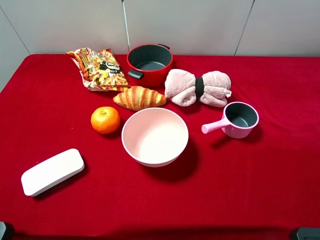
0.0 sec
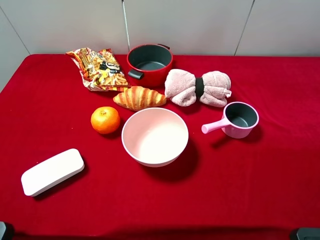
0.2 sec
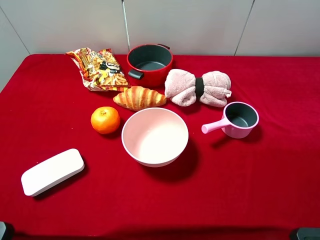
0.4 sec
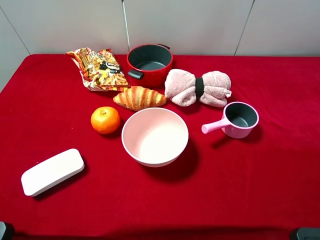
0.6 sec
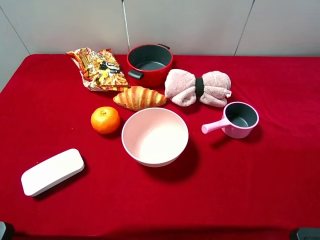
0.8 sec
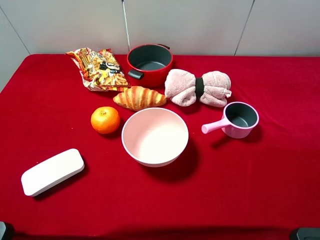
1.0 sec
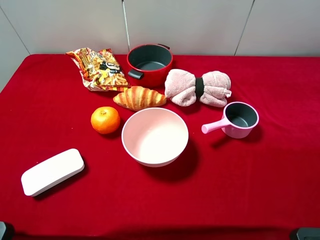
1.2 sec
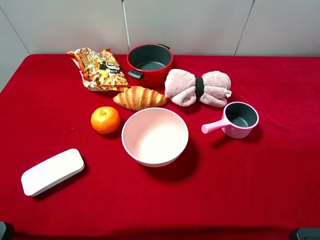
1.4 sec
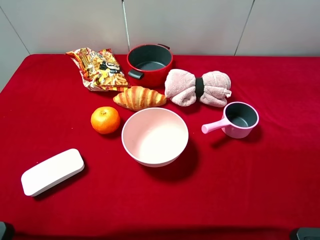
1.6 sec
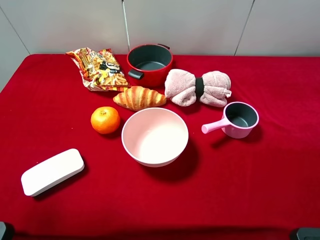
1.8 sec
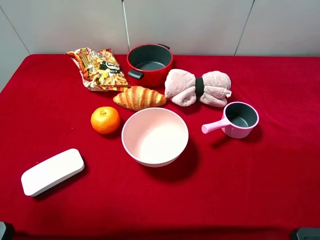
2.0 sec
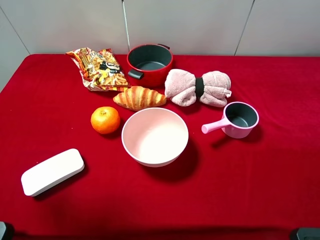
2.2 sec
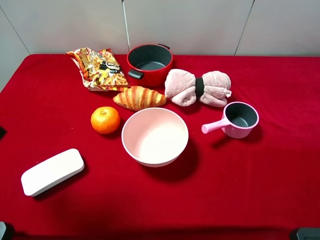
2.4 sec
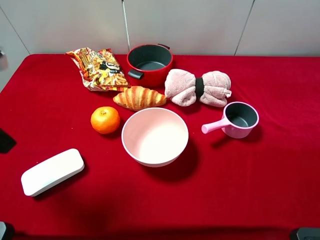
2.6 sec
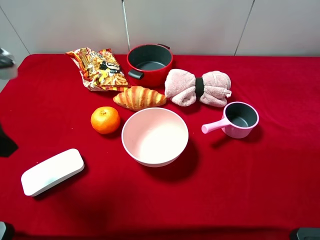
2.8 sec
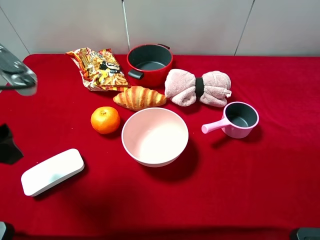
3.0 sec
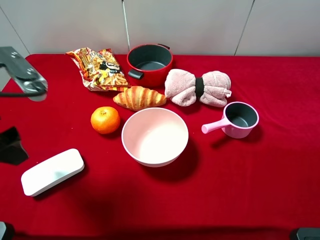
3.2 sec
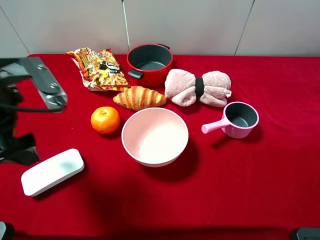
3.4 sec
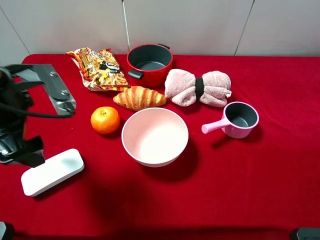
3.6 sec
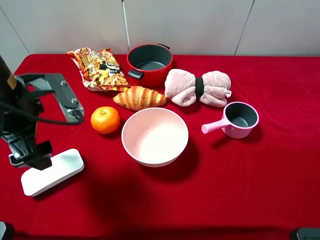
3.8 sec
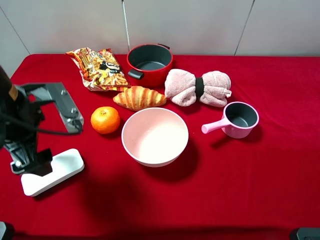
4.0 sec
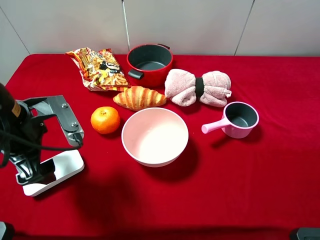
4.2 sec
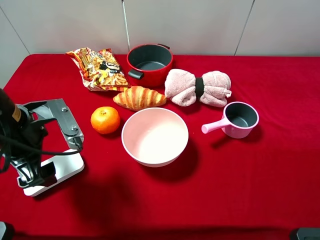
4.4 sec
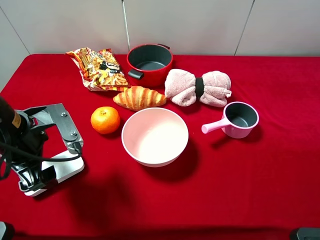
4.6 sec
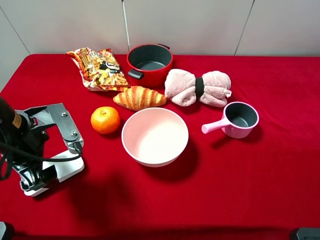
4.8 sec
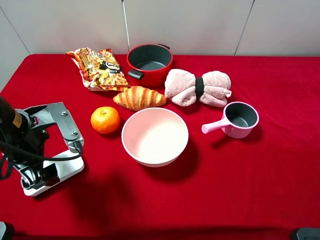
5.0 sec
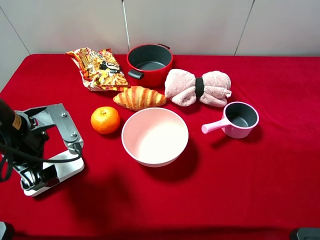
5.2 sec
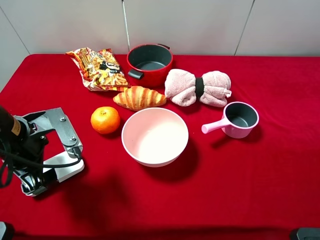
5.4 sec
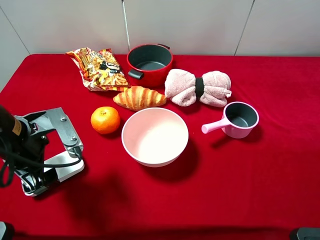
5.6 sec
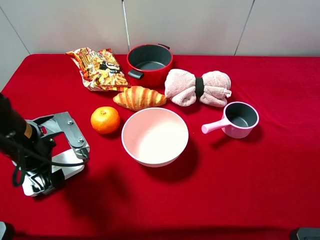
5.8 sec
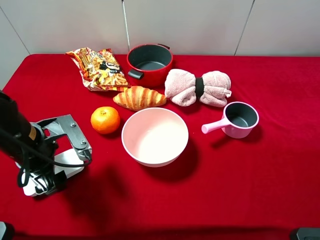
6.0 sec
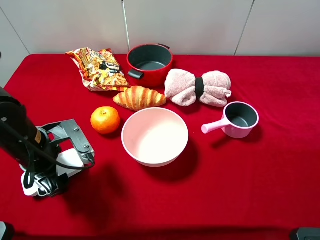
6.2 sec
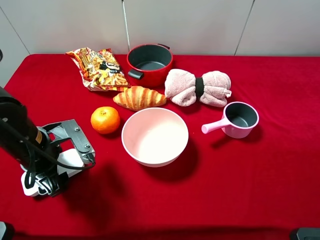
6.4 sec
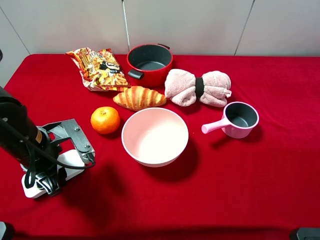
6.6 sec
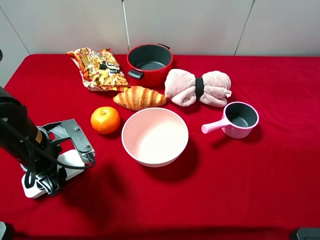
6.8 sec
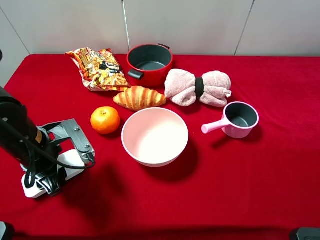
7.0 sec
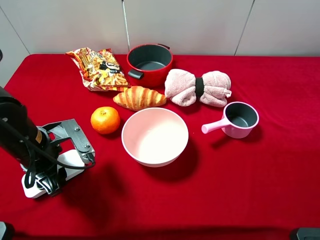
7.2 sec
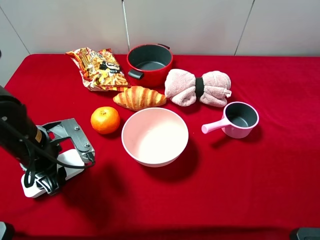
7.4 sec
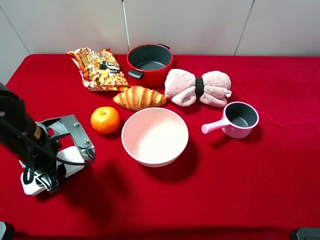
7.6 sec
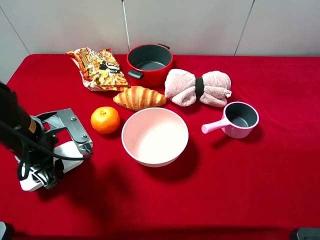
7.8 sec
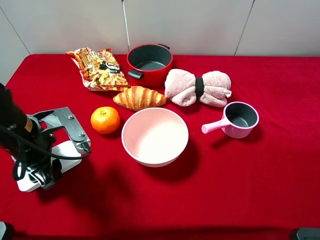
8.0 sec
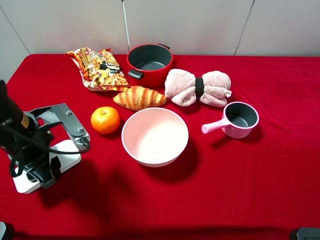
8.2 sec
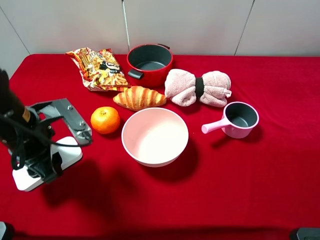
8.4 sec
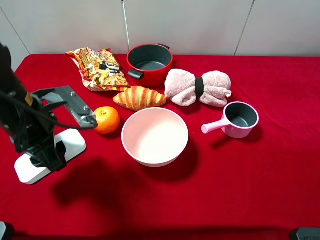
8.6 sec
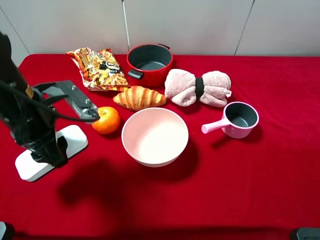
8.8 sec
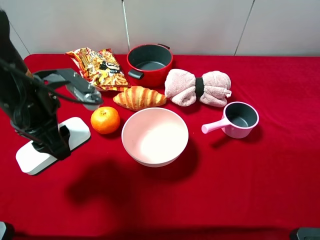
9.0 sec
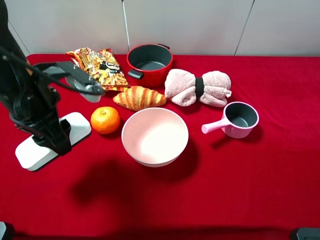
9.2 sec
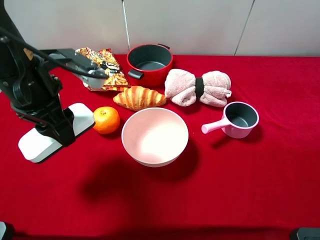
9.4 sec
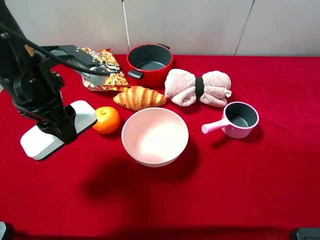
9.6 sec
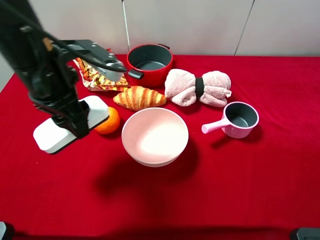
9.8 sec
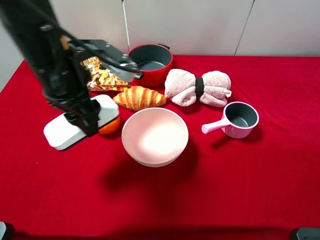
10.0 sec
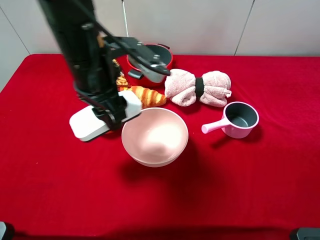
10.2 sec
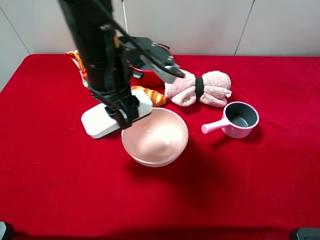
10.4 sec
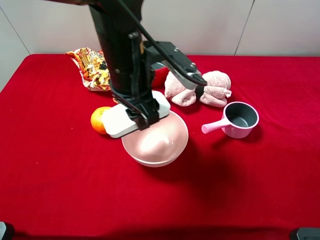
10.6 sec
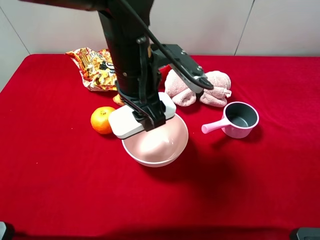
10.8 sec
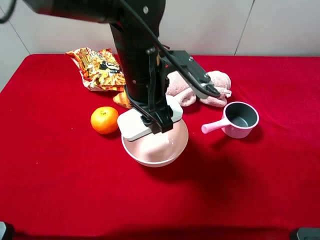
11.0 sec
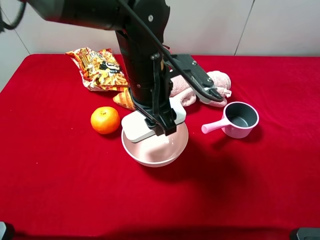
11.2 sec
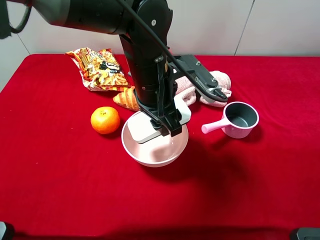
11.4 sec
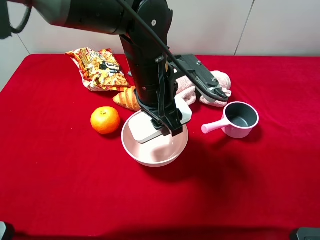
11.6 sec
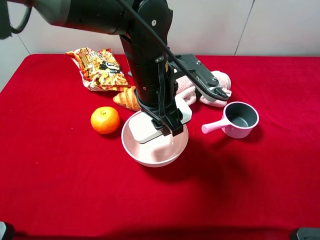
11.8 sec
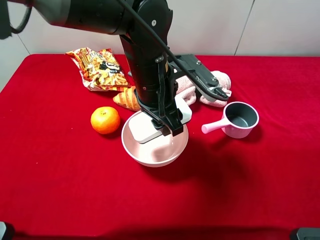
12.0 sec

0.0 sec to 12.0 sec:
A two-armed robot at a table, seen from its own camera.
Task of the whole recording: pick up an item with a gripper and place it in a random container on the desktop.
1.6 sec to 3.0 sec: The left gripper heads forward, downward and to the right, covering approximately 15 cm.
3.0 sec to 4.4 sec: The left gripper heads downward, covering about 10 cm.
4.4 sec to 6.0 sec: The grippers move only a little.
6.0 sec to 7.6 sec: The left gripper closes up.
7.6 sec to 9.0 sec: The left gripper goes some 10 cm upward.
9.0 sec to 10.4 sec: The left gripper goes about 15 cm to the right.
10.4 sec to 12.0 sec: The left gripper goes approximately 5 cm to the right.

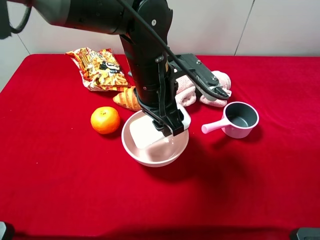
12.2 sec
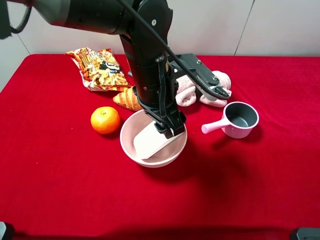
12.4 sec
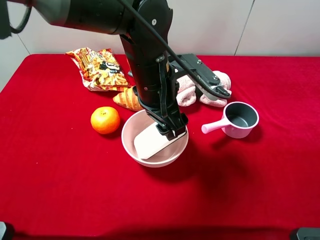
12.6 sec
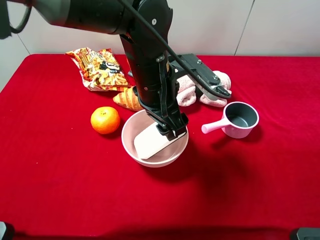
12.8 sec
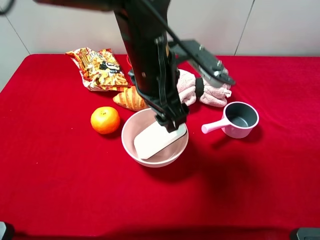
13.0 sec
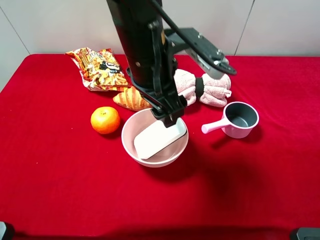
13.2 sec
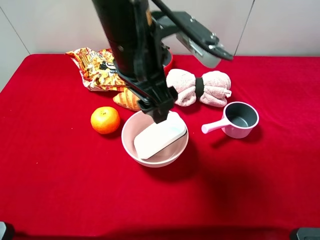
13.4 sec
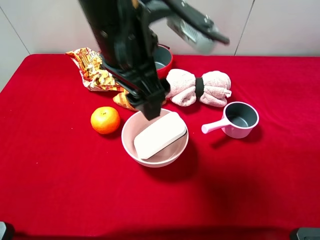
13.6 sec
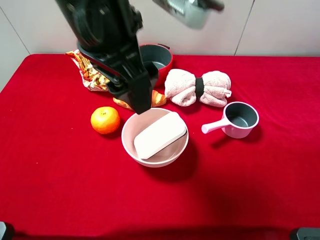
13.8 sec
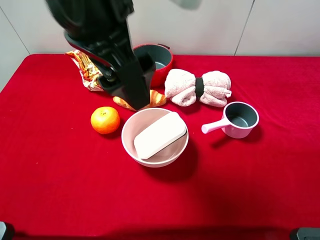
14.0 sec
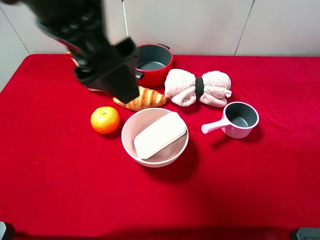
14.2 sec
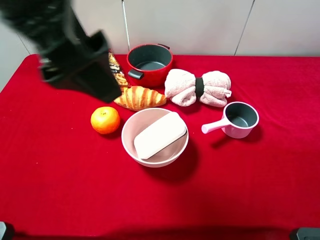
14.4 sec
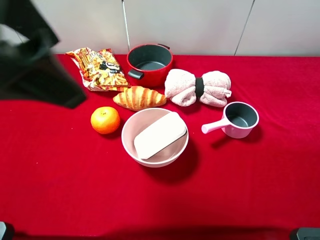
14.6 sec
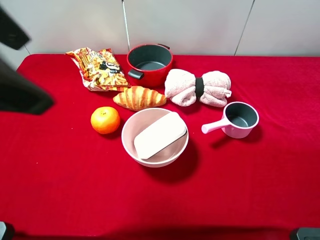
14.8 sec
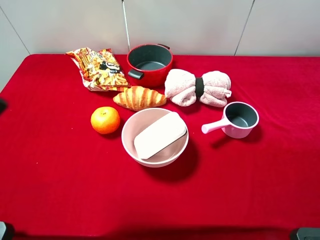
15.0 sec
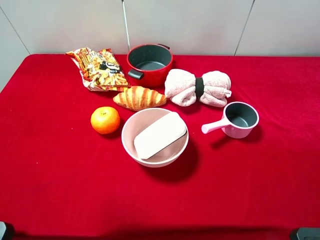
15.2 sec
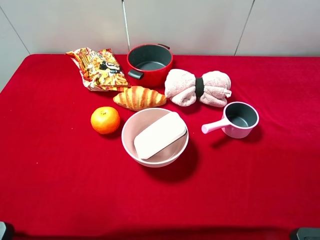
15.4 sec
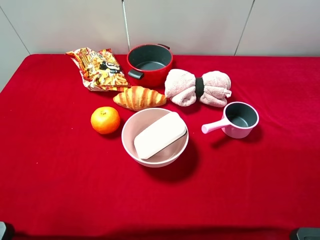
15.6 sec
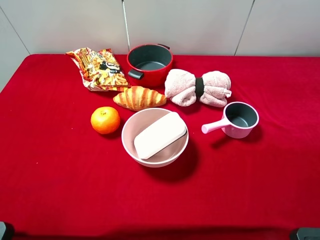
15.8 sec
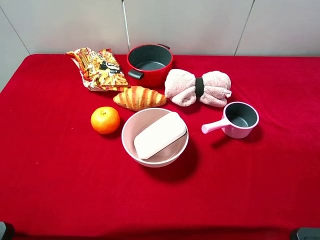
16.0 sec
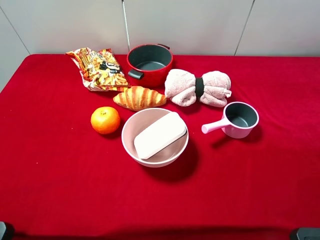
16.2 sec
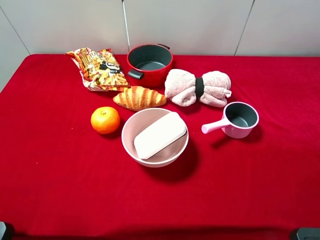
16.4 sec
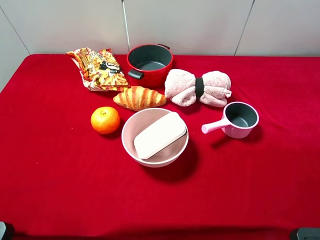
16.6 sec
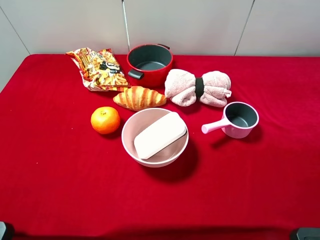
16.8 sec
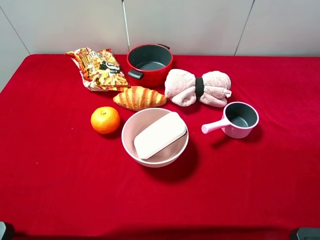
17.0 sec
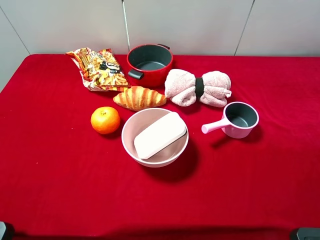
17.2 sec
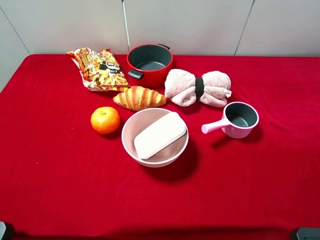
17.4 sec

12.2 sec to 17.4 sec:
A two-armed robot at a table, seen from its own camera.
Task of the whole recording: pick up an item with a gripper and place it in a random container on the desktop.
12.2 sec to 14.0 sec: The left gripper heads upward and to the left, covering approximately 15 cm, and opens its fingers.
14.0 sec to 15.6 sec: The left gripper travels to the left and backward by roughly 25 cm.

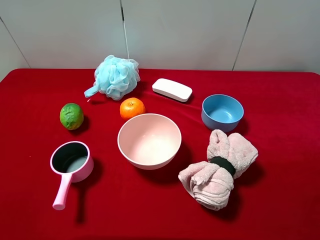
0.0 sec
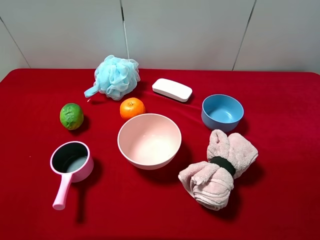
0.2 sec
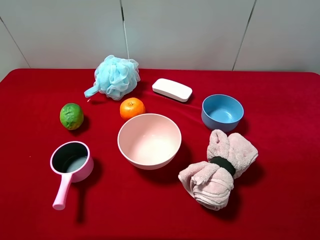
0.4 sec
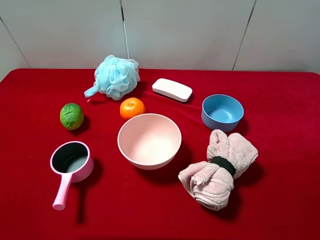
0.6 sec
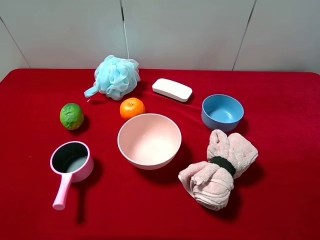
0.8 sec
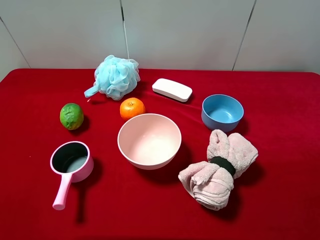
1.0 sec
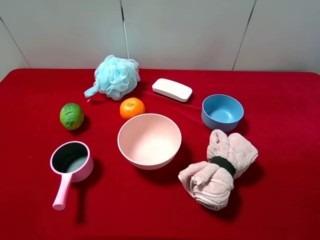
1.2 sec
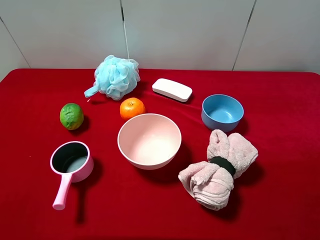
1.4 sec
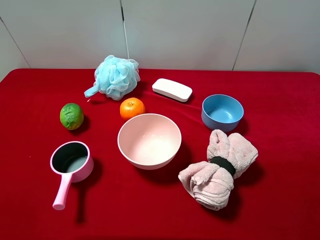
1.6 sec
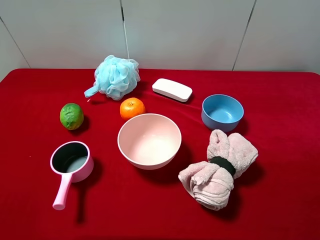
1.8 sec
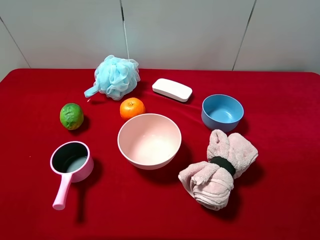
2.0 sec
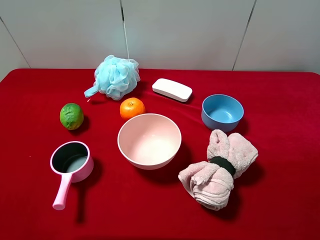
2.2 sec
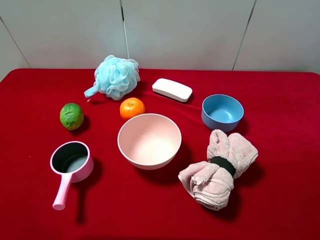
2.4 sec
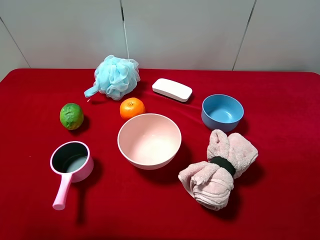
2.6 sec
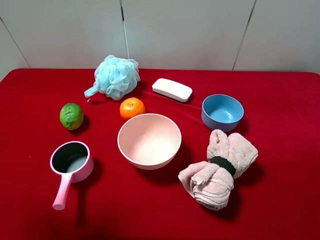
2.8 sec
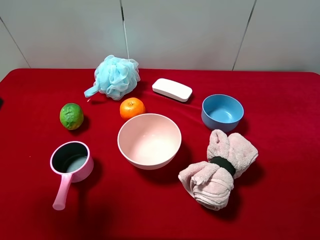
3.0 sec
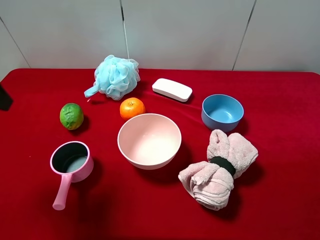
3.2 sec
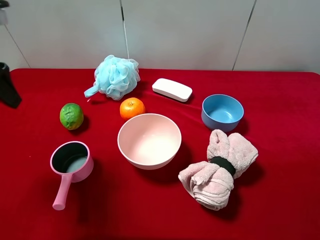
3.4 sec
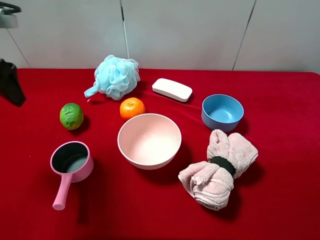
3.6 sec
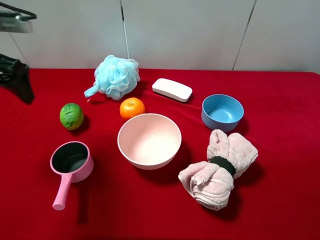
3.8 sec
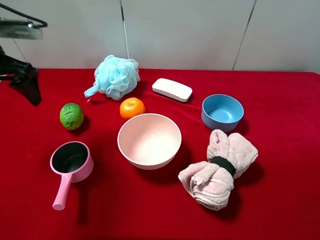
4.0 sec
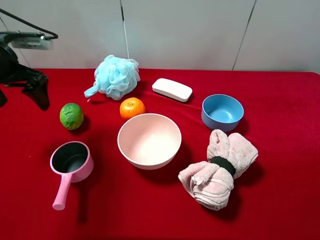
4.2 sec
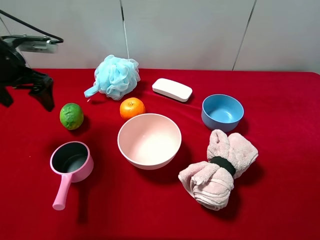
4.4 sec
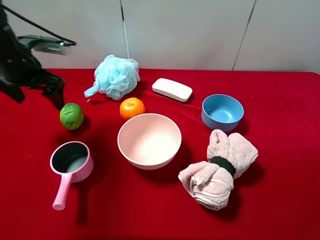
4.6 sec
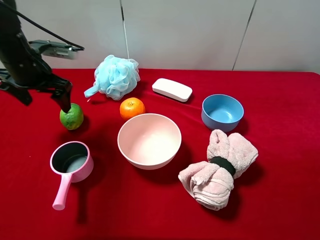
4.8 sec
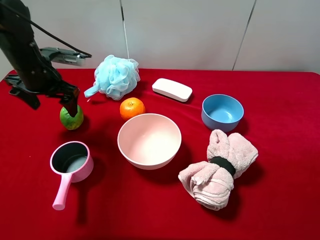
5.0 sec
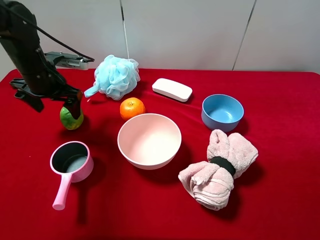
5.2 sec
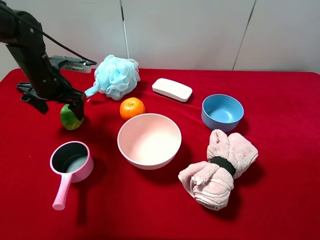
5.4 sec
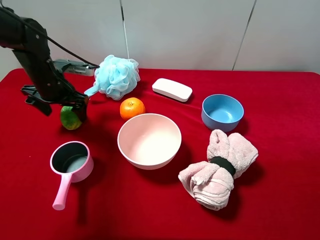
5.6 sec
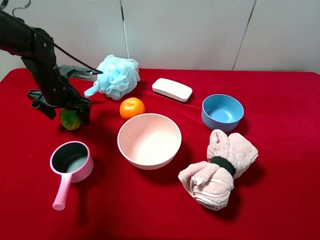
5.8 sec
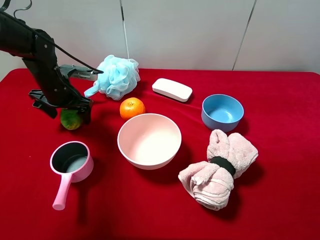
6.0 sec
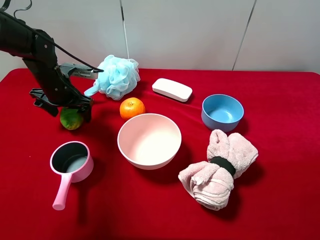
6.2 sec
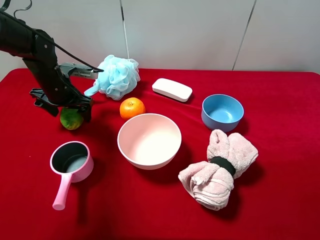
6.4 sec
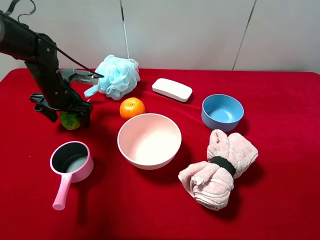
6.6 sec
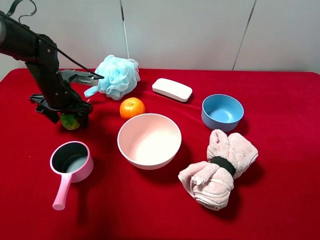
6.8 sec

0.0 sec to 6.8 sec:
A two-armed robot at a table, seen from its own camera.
Task of the whole recording: pick up an item with a gripper and place it in a random container on the desktop.
0.0 sec to 1.4 sec: Both grippers stay put.
2.8 sec to 4.0 sec: The left gripper travels forward and downward by approximately 15 cm.
4.0 sec to 5.4 sec: The left gripper travels downward and forward by about 10 cm.
5.4 sec to 6.8 sec: The left gripper closes up.
